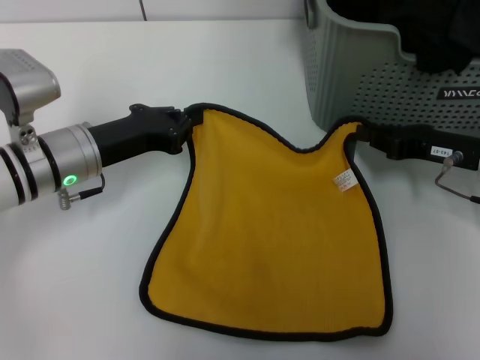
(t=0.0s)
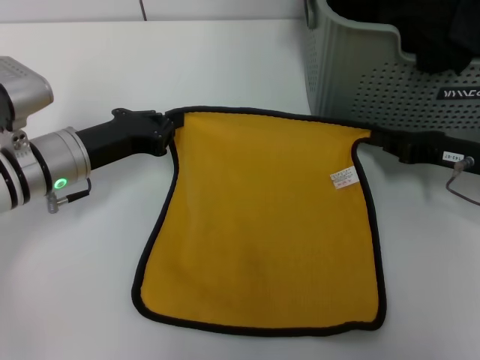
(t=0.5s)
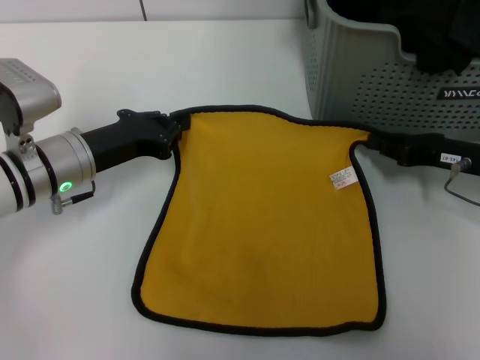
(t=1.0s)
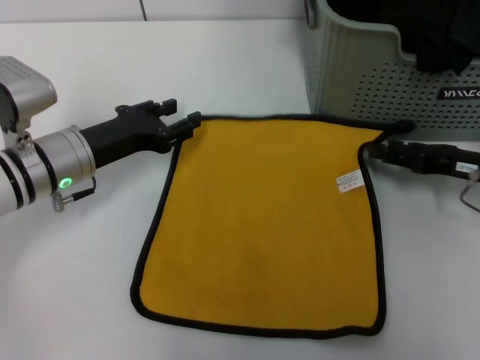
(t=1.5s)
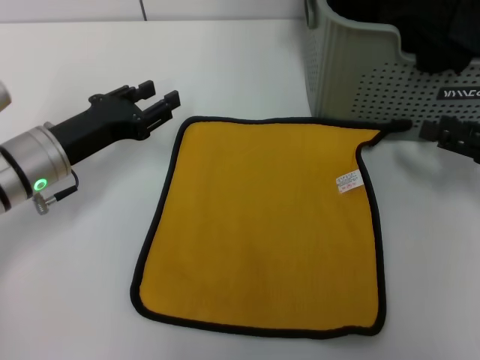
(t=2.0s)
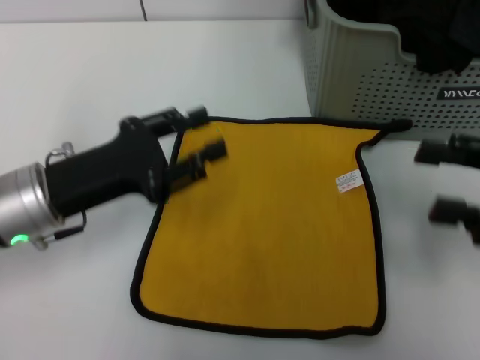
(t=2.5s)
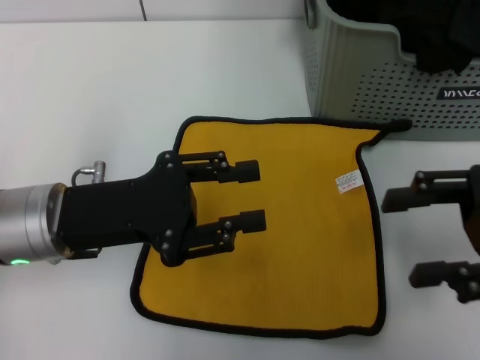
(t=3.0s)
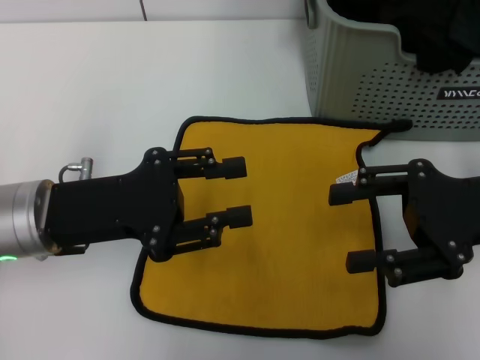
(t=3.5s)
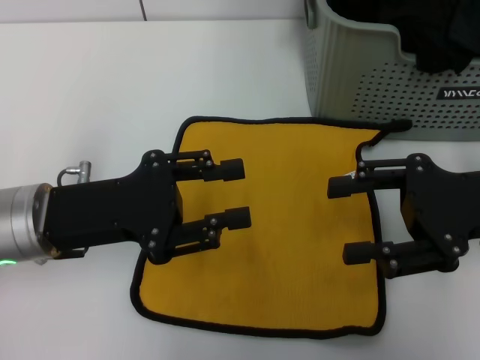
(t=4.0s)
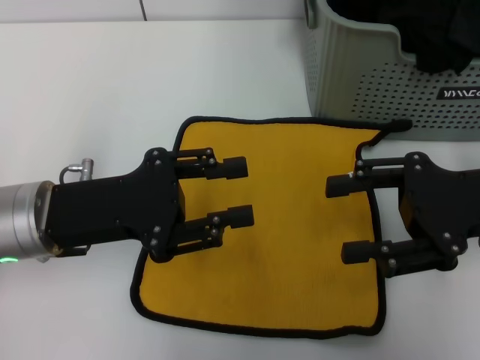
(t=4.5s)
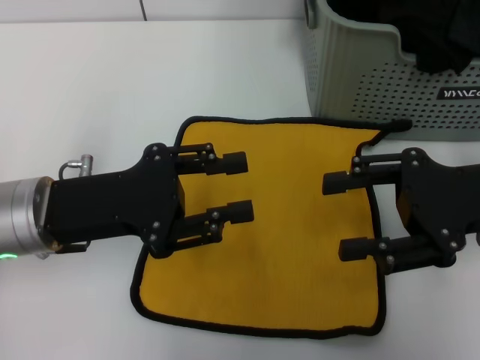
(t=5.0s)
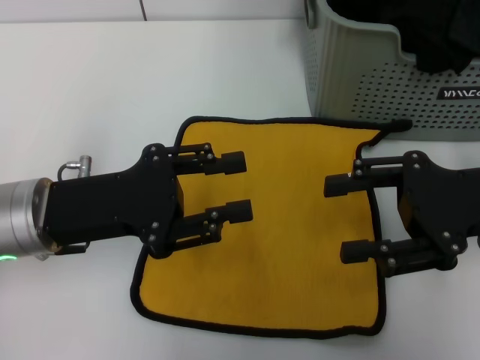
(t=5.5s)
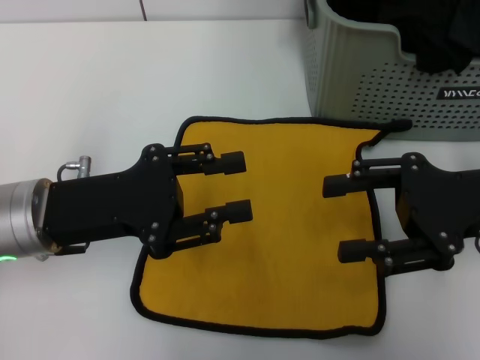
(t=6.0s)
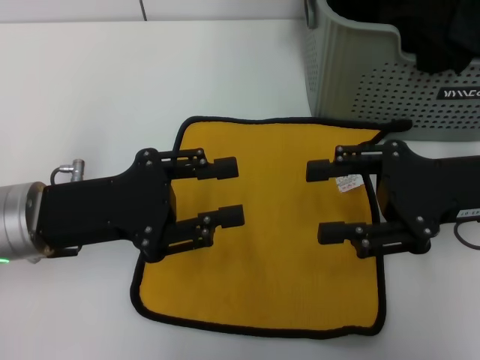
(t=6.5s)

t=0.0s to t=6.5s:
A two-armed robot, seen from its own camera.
Task of the whole recording: pick up the towel from the storage box and lay it flat on the table.
t=0.0s to t=2.0s: The right gripper moves to the right, about 5 cm, and opens up. The left gripper opens.
t=2.0s to t=4.5s: The right gripper travels to the left and upward by approximately 10 cm; the left gripper is displaced backward by about 5 cm.
t=4.5s to t=6.5s: The grippers move only a little.

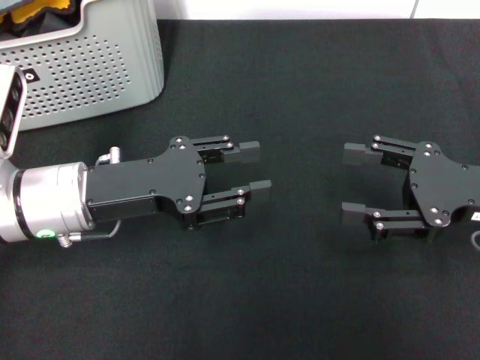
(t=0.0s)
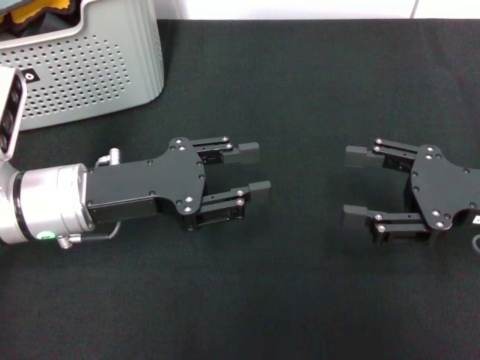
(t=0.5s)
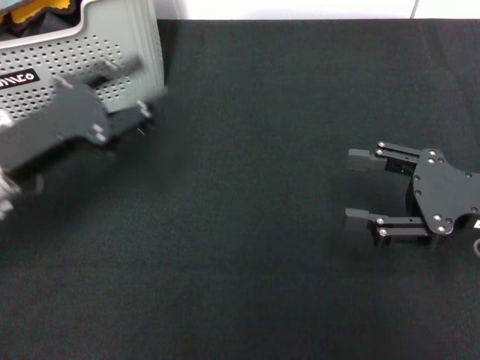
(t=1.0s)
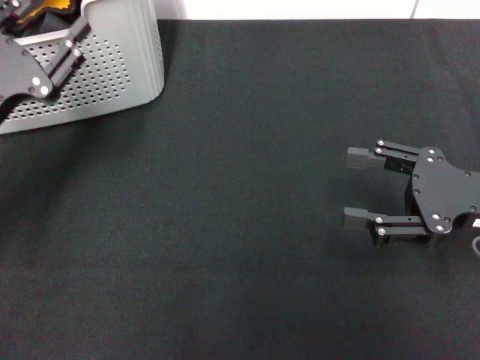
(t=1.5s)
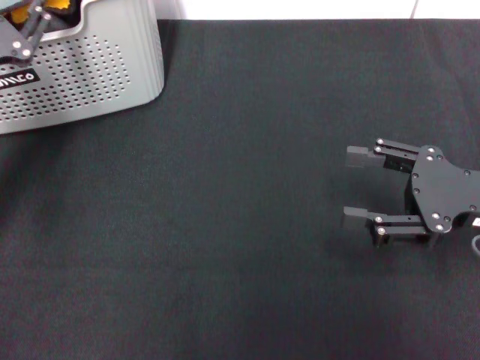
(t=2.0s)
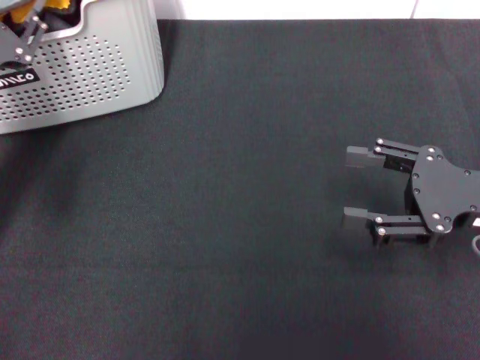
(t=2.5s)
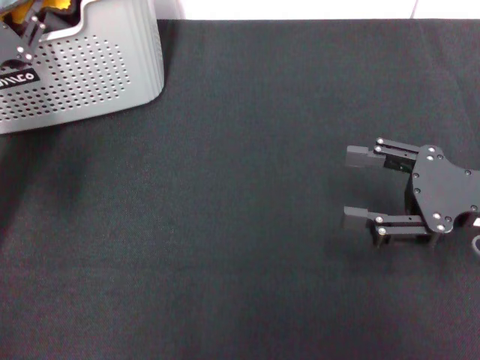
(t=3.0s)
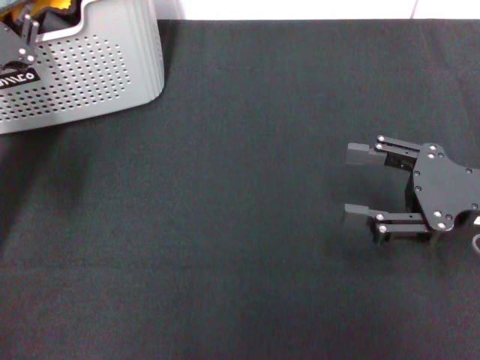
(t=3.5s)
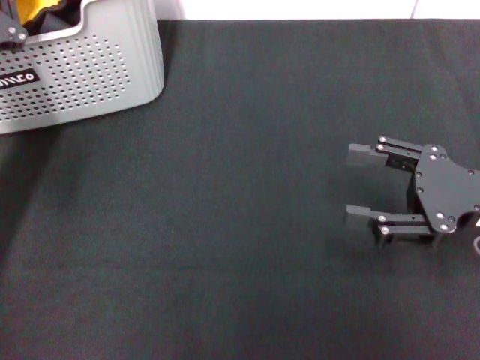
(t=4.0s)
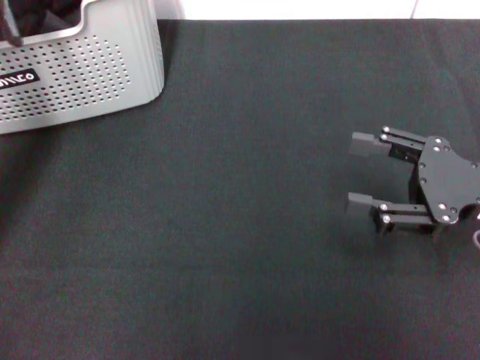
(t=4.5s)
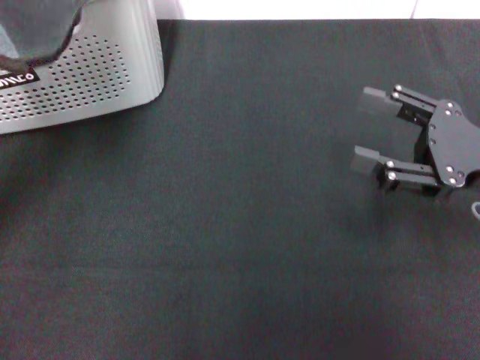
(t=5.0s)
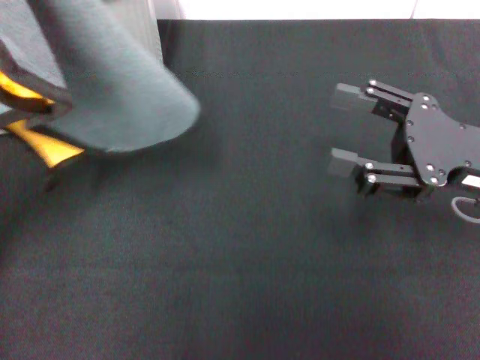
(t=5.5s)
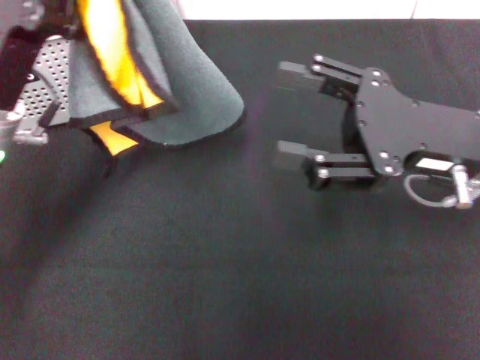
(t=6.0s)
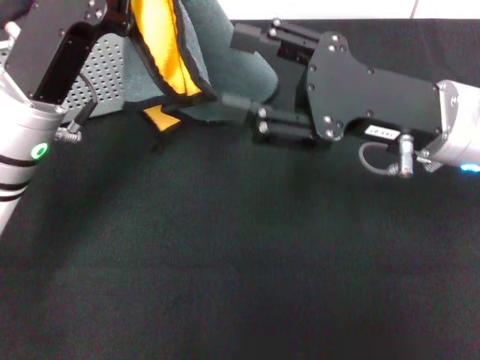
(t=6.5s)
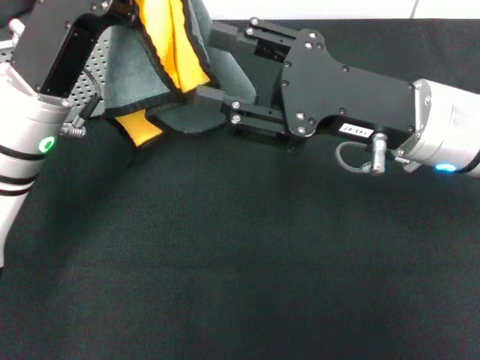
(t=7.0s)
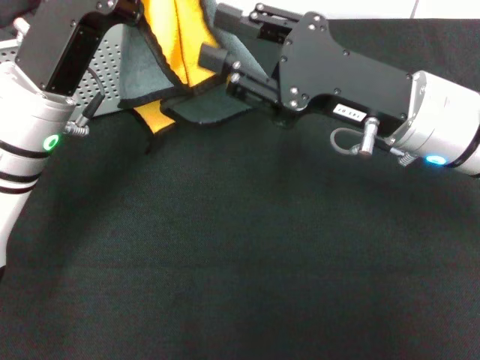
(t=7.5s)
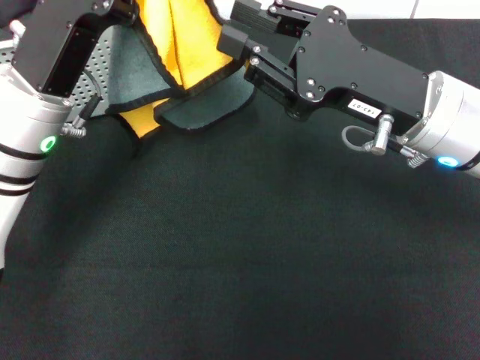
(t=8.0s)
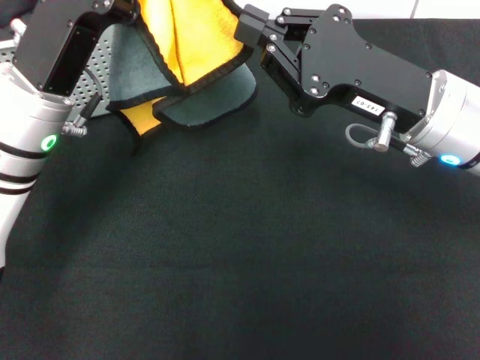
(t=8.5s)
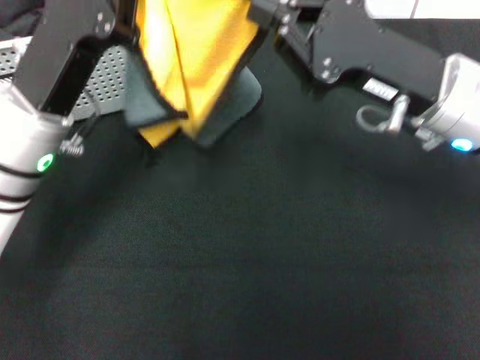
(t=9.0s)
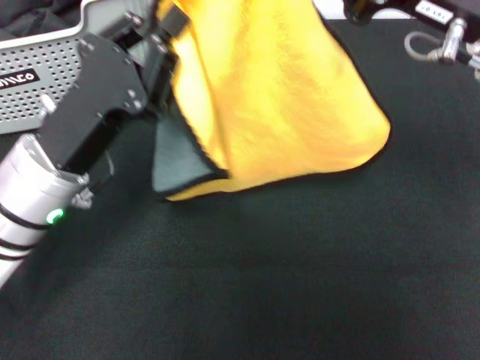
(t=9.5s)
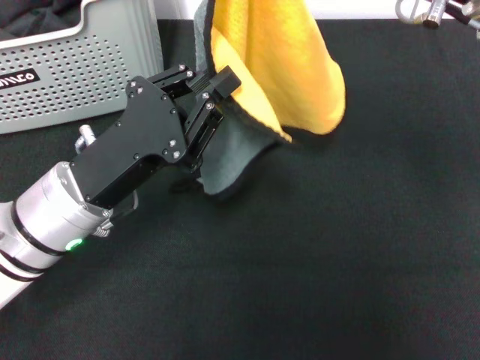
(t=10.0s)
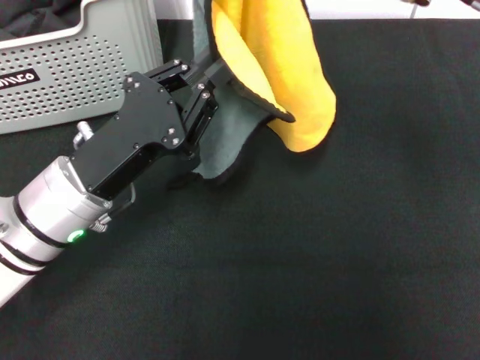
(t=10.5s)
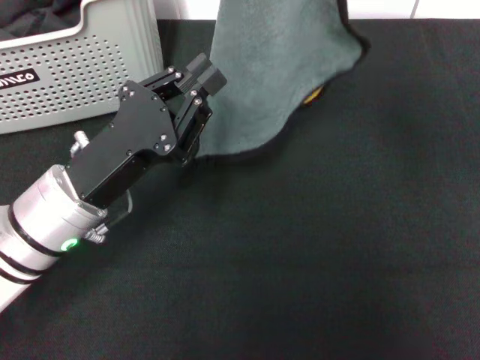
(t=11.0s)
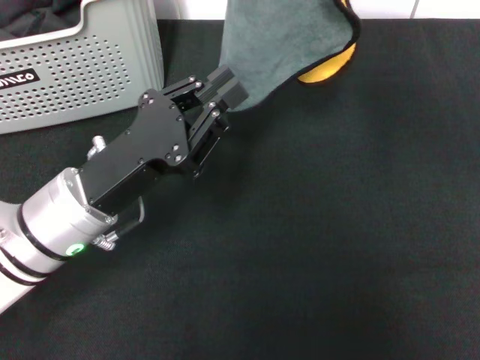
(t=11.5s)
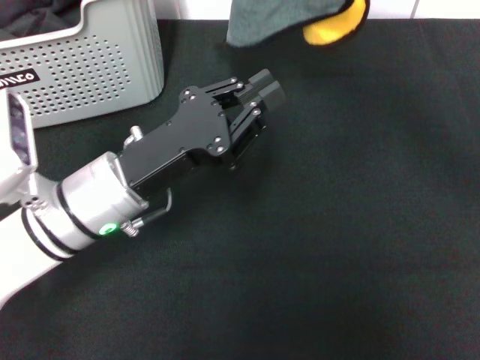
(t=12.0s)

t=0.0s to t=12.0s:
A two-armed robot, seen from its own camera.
Task of the whole recording: pick up the towel from the storage box and lay it flat on the black tablecloth.
Step, t=0.0s to t=3.5s: Pick up a towel with the left gripper.
Step, t=4.0s to t=8.5s: Spread the towel flat with the left gripper.
t=0.0s to t=2.0s: The left gripper is displaced to the left by some 10 cm.
t=2.0s to t=4.0s: The left gripper closes its fingers.
t=4.0s to t=6.0s: The right gripper moves to the left, some 5 cm, while the left gripper travels to the right and upward by roughly 10 cm.
t=6.0s to t=8.0s: The right gripper closes up.
t=8.0s to t=10.0s: The right gripper moves upward, about 10 cm, and closes; the left gripper changes place by about 5 cm.
t=10.0s to t=12.0s: The right gripper shifts approximately 5 cm upward.

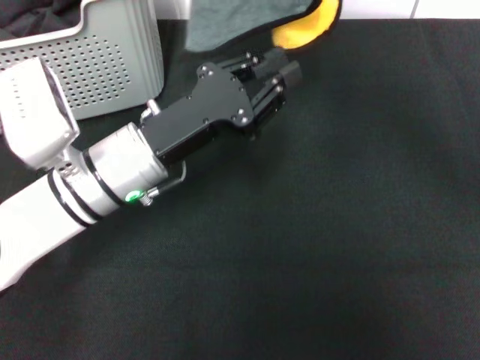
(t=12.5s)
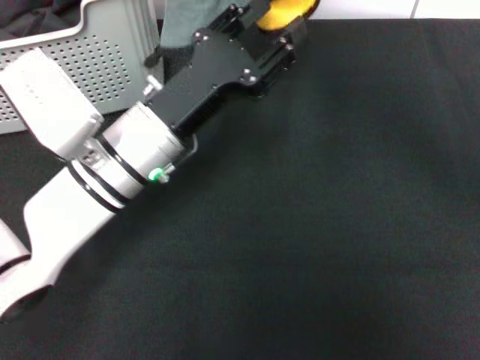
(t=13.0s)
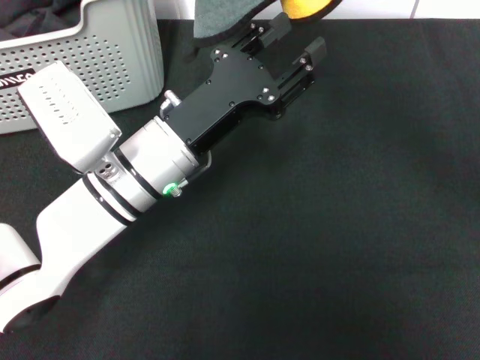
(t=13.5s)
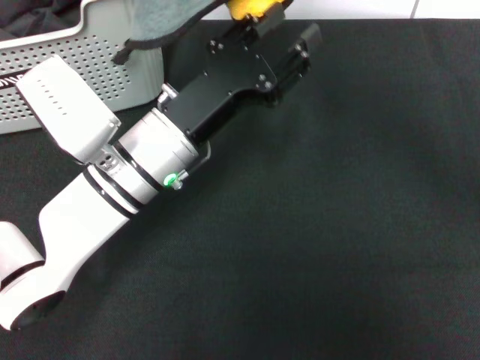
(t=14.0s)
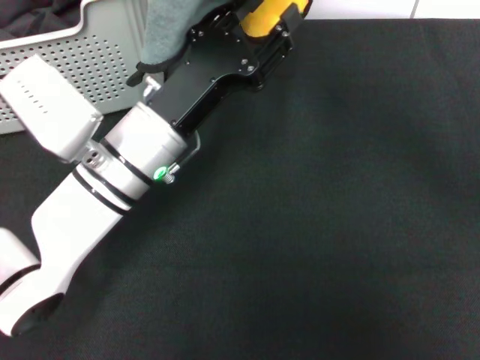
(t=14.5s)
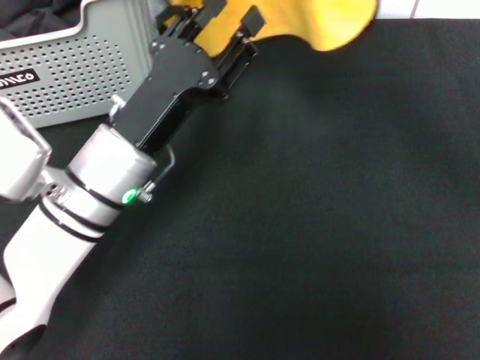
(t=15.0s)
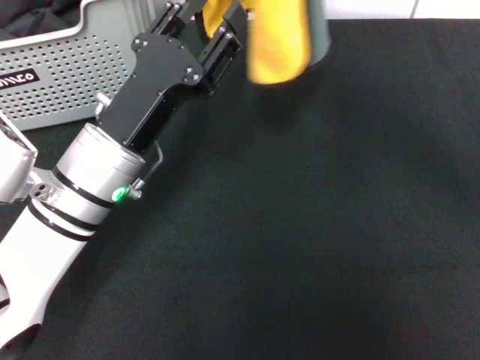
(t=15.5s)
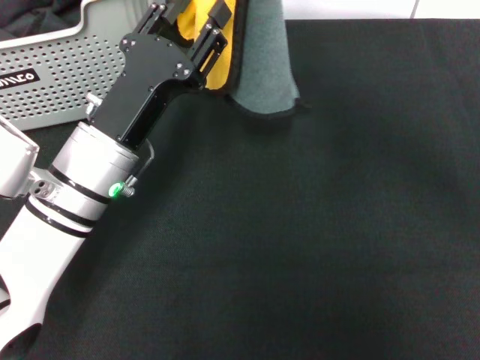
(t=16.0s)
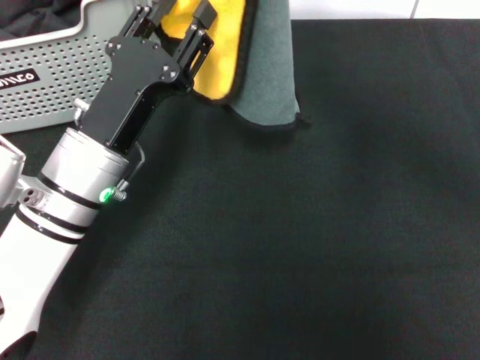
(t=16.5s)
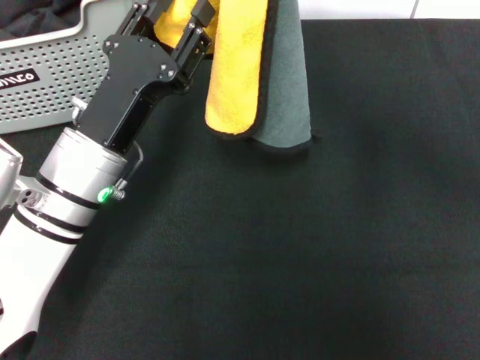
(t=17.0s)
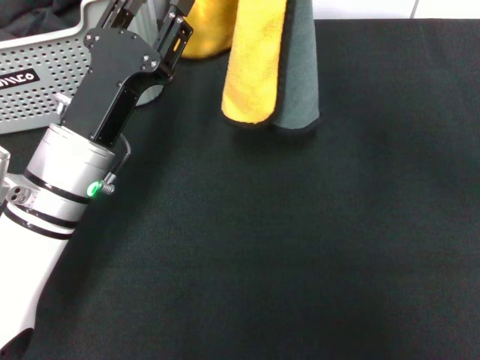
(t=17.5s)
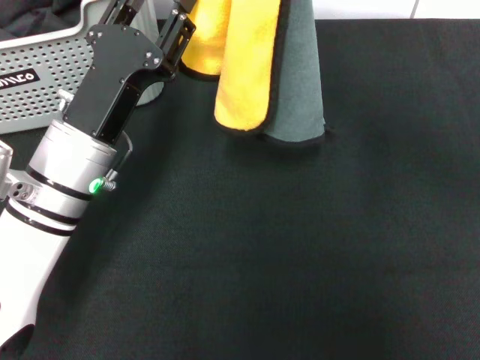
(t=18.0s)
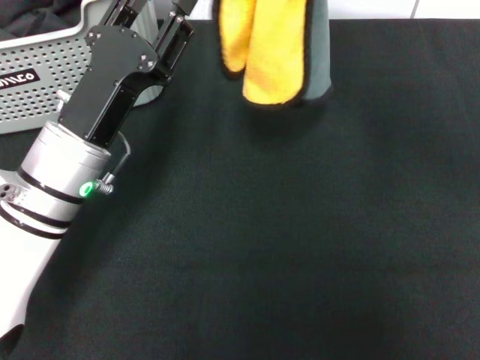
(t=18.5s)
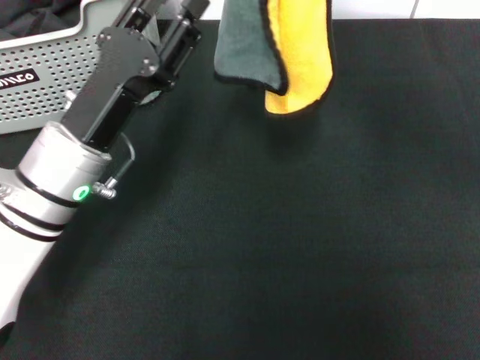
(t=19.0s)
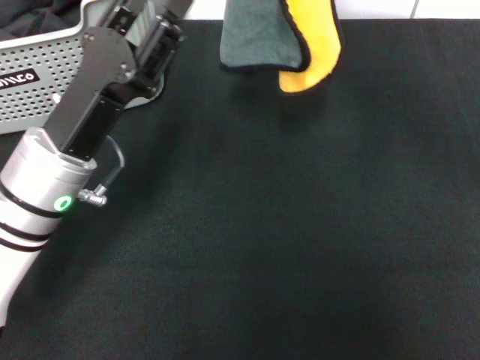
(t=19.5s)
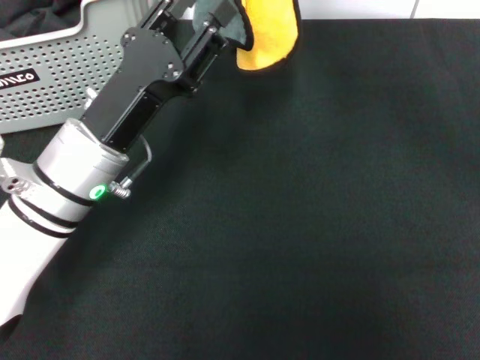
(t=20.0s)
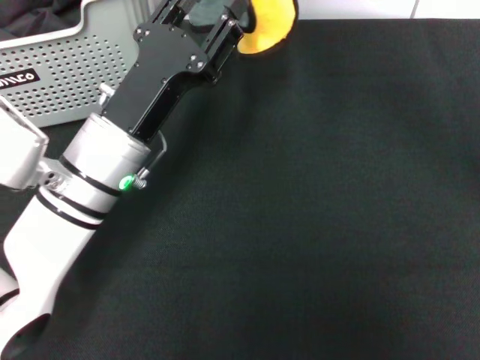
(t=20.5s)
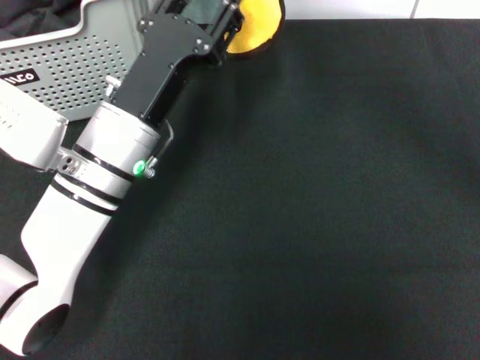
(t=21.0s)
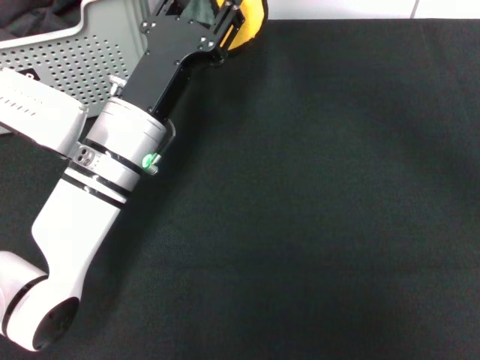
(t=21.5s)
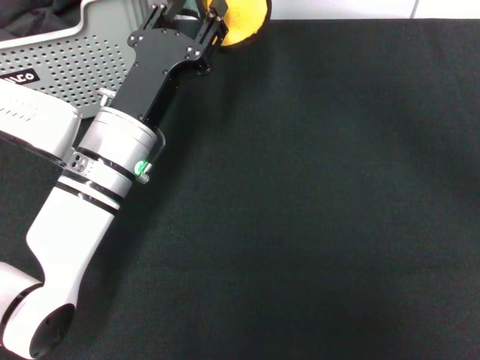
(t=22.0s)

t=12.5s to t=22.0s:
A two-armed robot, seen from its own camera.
Task of the whole recording: pick up the towel from the storage box and lay it flat on the black tablecloth.
t=12.5s to t=14.5s: The left gripper opens its fingers.
t=14.5s to t=16.5s: The right gripper ends up roughly 5 cm from where it was.
t=16.5s to t=18.0s: The grippers make only small movements.
t=18.0s to t=20.0s: The right gripper goes about 5 cm forward.
